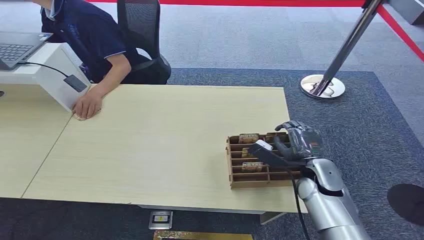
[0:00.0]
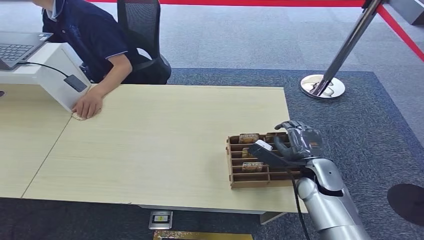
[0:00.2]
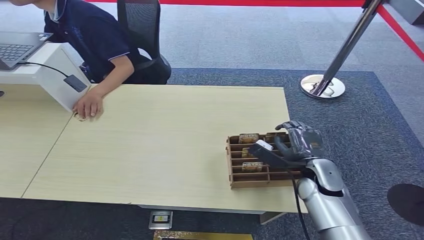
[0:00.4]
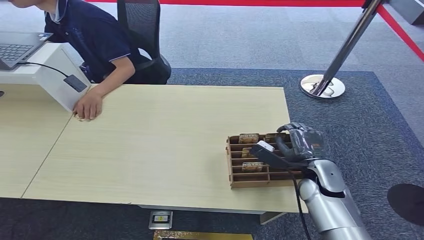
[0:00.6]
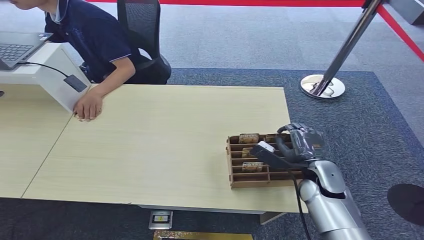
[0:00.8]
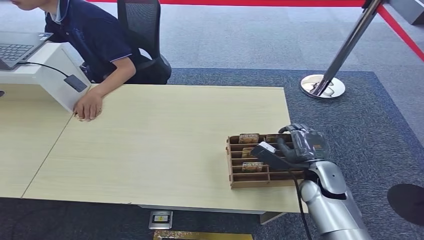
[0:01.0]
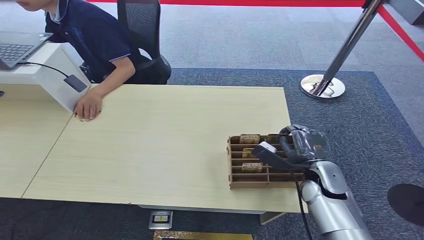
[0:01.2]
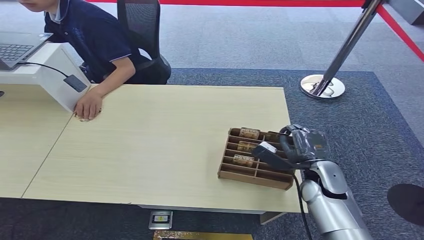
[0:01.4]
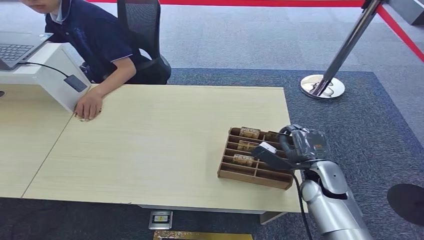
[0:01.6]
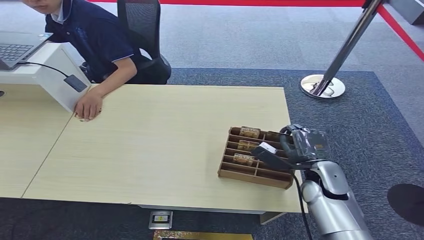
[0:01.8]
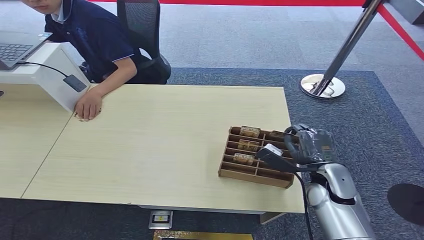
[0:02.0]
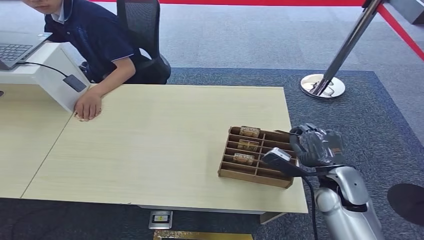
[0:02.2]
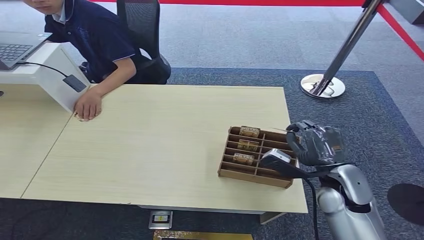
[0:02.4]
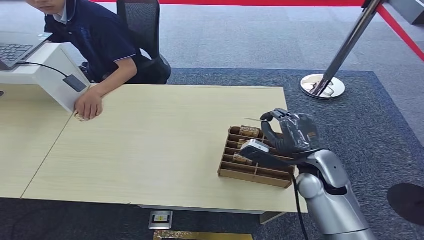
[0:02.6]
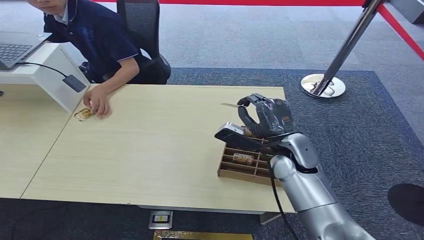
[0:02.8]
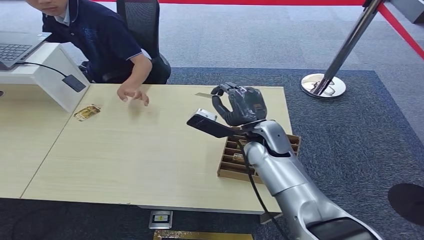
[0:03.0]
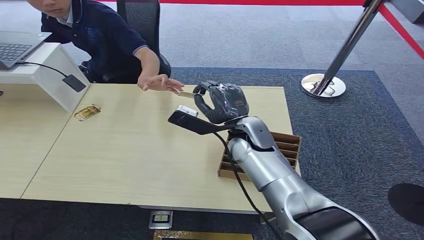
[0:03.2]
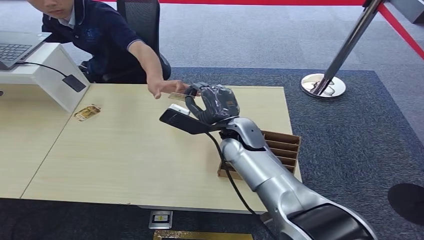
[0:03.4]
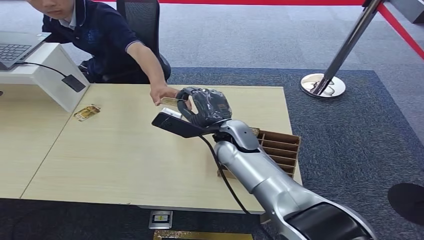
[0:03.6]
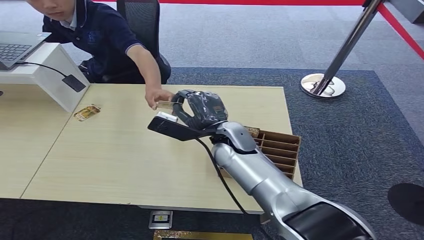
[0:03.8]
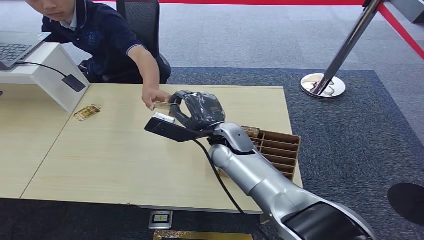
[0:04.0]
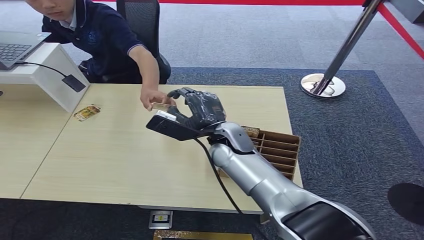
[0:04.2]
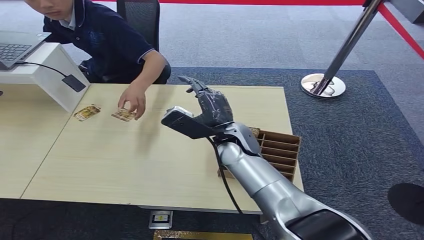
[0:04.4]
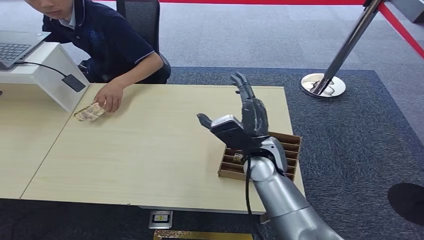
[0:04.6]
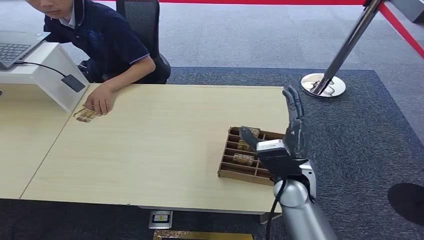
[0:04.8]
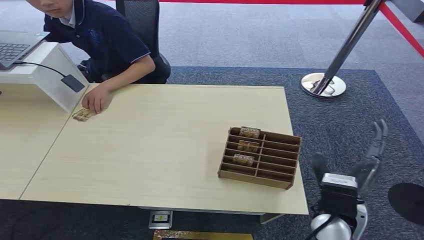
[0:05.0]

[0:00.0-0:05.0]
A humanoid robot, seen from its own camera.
Step, 0:00.0 to 0:03.0: Pick up the key card from the card box.
Step, 0:03.2 to 0:05.0: Hand the key card to the target.
0:03.4 to 0:05.0: The right hand heads backward and to the right, covering some 20 cm.
